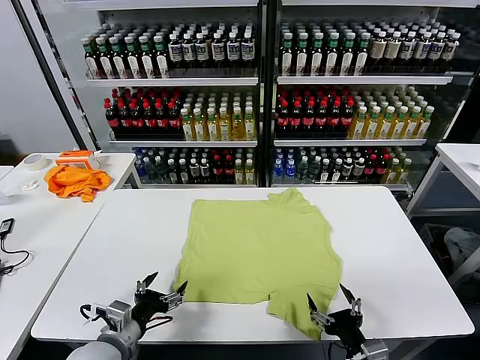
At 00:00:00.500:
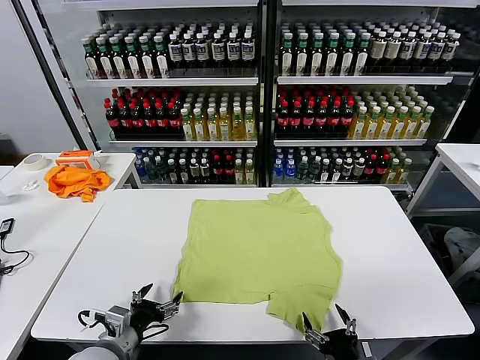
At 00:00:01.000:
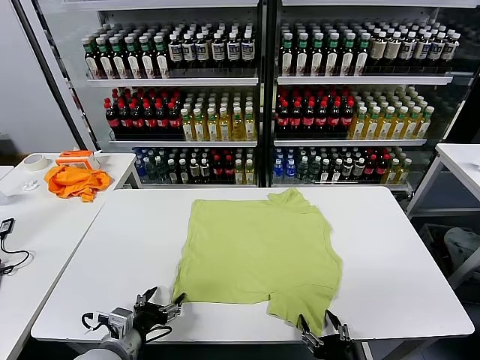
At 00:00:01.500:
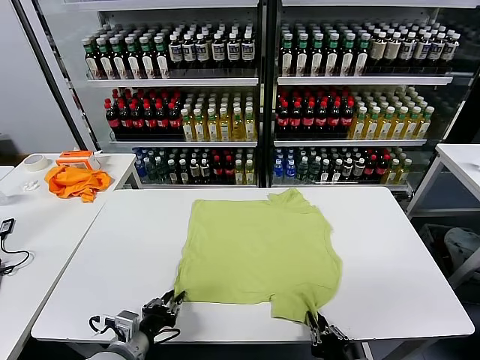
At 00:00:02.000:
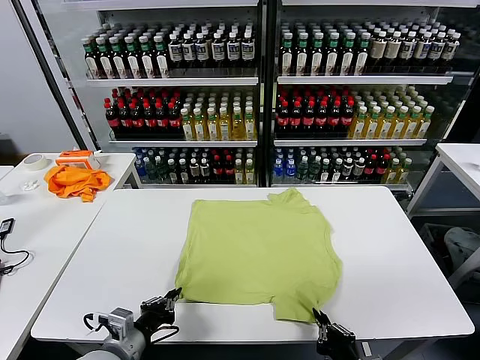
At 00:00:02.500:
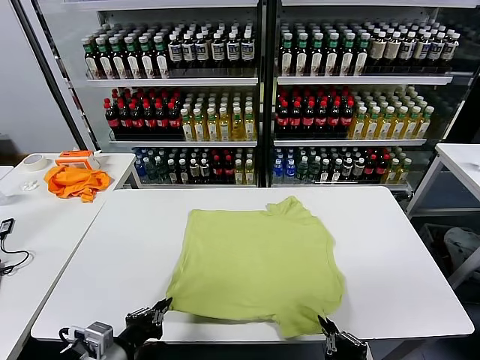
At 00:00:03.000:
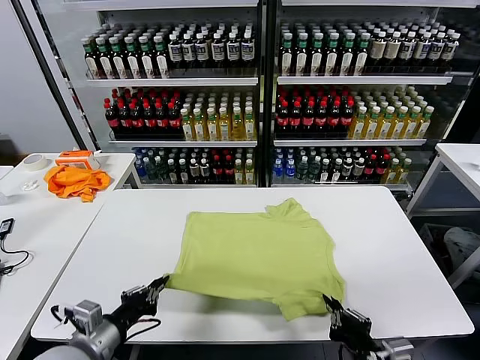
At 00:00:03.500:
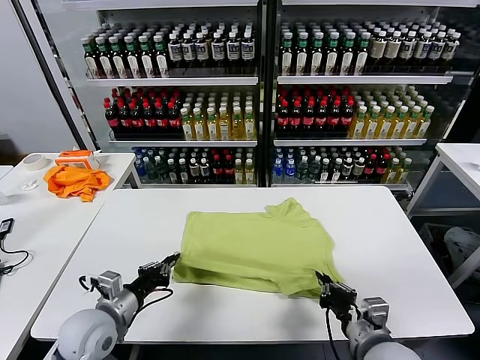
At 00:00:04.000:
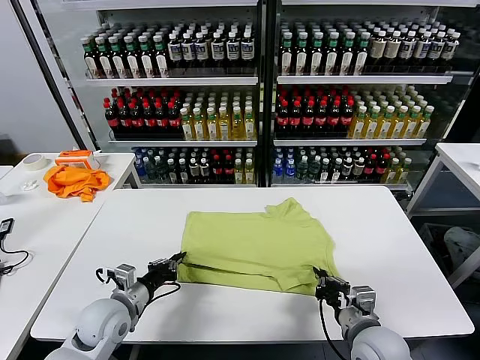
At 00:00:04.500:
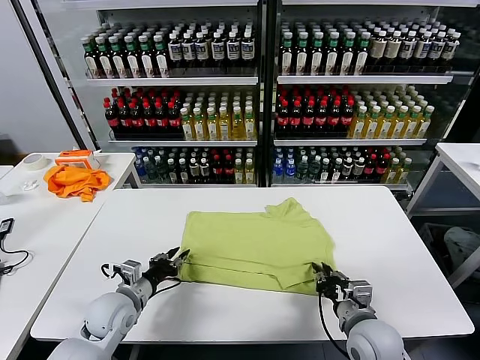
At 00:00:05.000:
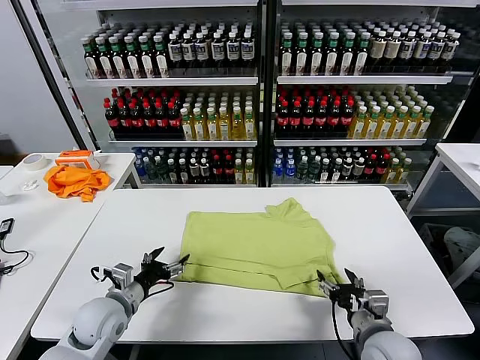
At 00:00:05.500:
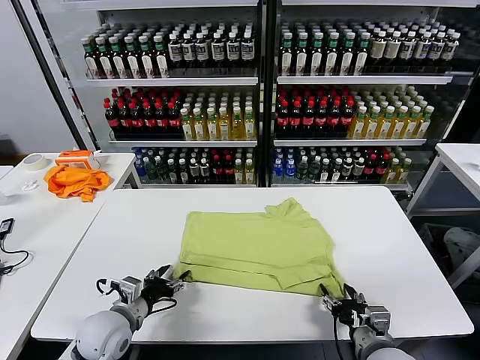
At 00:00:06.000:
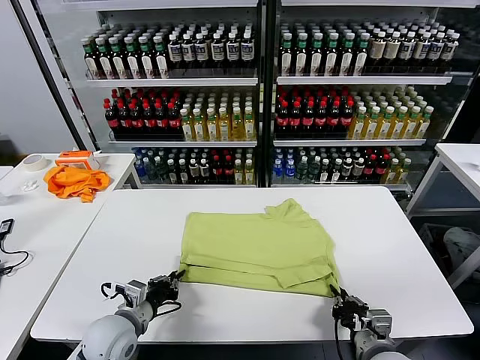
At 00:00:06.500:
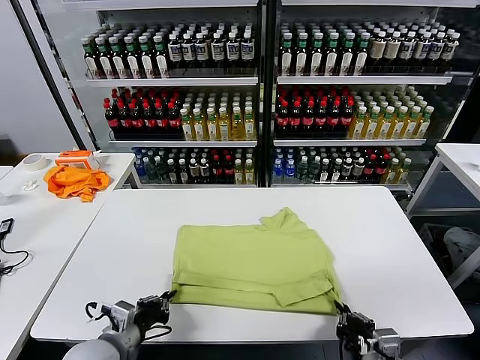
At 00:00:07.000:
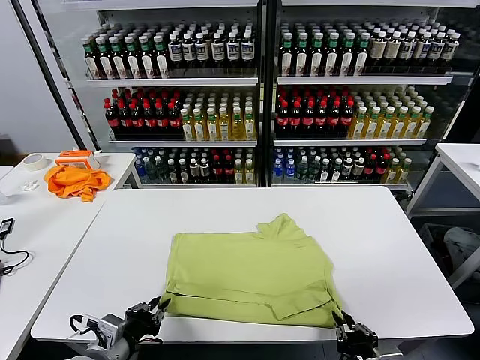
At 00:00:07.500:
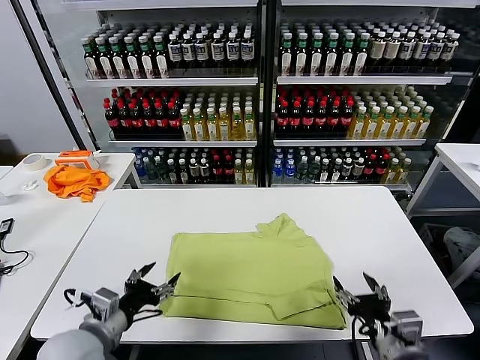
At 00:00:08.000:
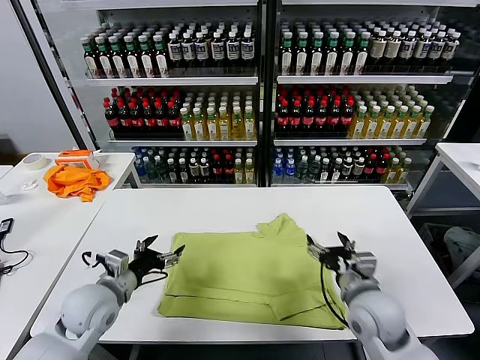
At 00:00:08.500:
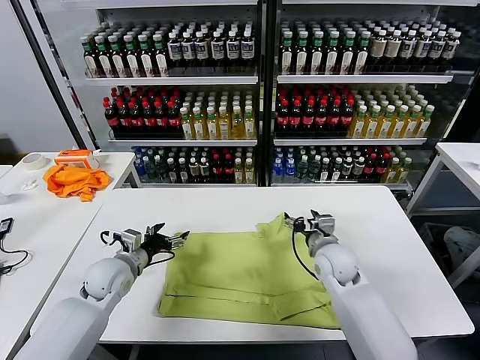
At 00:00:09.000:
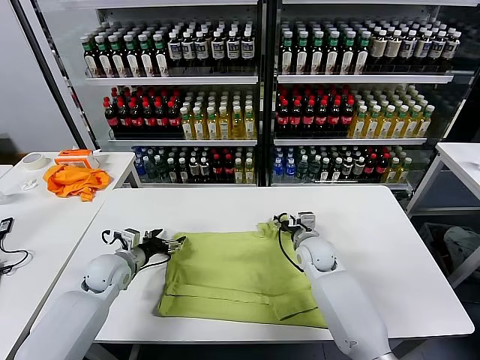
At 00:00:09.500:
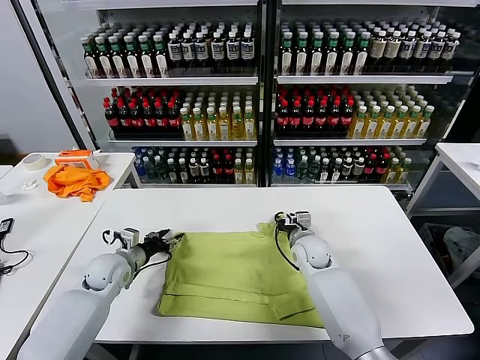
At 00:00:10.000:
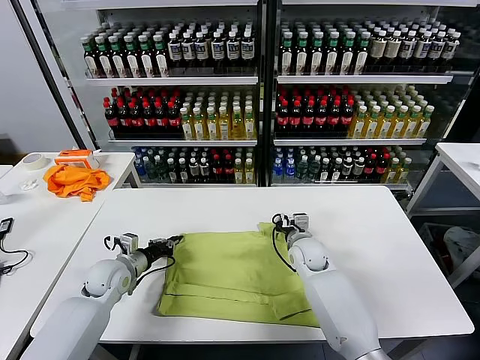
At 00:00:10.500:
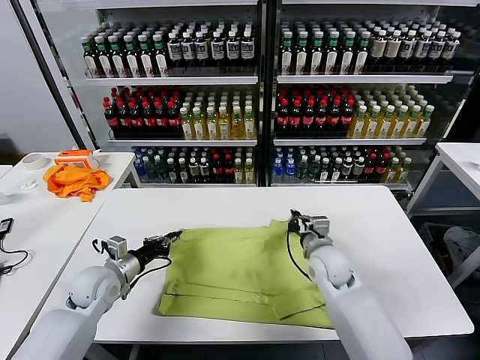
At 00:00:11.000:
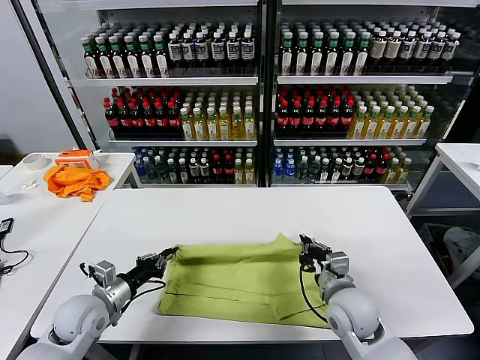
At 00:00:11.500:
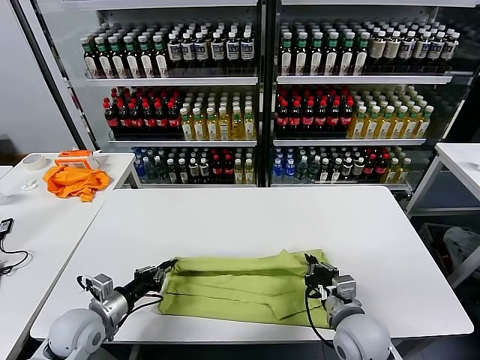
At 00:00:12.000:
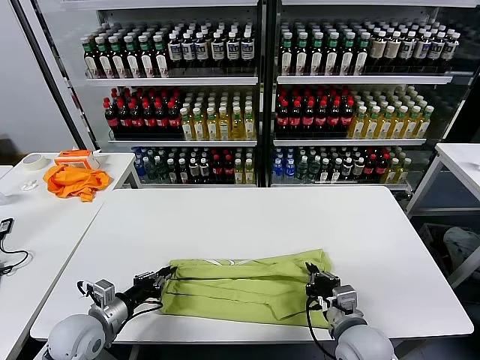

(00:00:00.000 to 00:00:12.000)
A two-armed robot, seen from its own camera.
Task of the whole recording: fold and organize the clothes.
Step, 00:00:00.000 - 00:00:01.500: use both grippers simultaneously to clamp the lower edge of the clothing fabric.
Step, 00:00:02.000 - 00:00:04.500: use both grippers to drag the lower edge of the fabric forward and fold it over the upper edge.
Step, 00:00:05.000 - 00:00:07.000: Drag the clothes downward with both gripper.
Step, 00:00:07.500 - 00:00:09.500: use both grippers simultaneously to clamp the upper edge of the clothing fabric.
00:00:02.000 - 00:00:04.000: Both grippers travel together forward, roughly 15 cm.
00:00:04.000 - 00:00:06.000: The left gripper opens, then closes once more, while the right gripper travels backward by some 5 cm, and opens, then closes once more.
00:00:06.000 - 00:00:08.000: The left gripper heads forward and upward, covering some 10 cm, and opens up. The right gripper goes approximately 15 cm forward and upward, and opens its fingers.
00:00:08.000 - 00:00:10.000: The right gripper is displaced forward, downward and to the left by roughly 20 cm, and closes up. Meanwhile the left gripper is displaced forward and downward by some 10 cm, and closes.
00:00:10.000 - 00:00:12.000: The right gripper is displaced backward by approximately 25 cm. The left gripper travels backward by about 15 cm.

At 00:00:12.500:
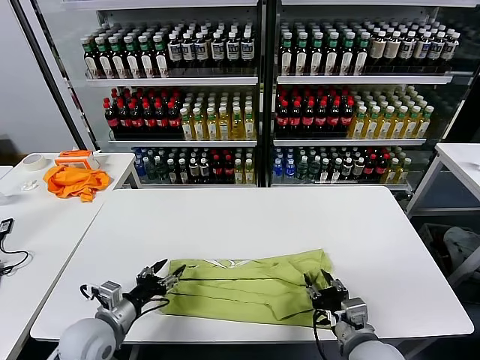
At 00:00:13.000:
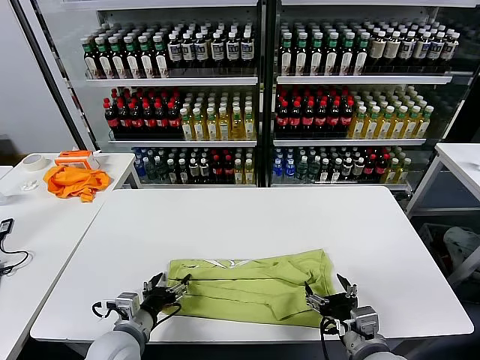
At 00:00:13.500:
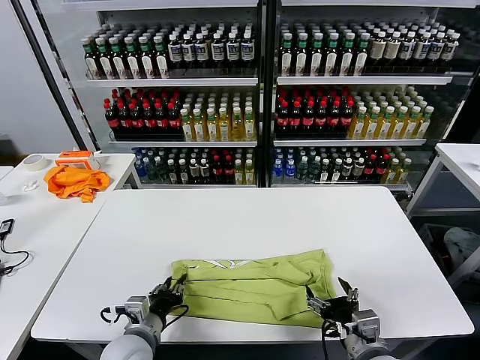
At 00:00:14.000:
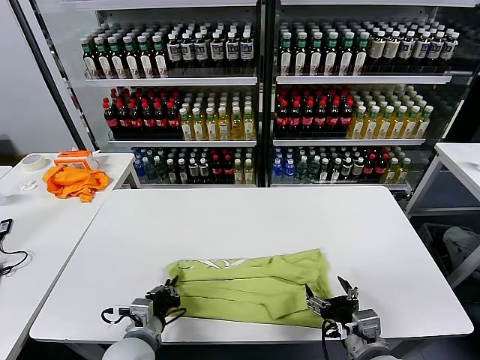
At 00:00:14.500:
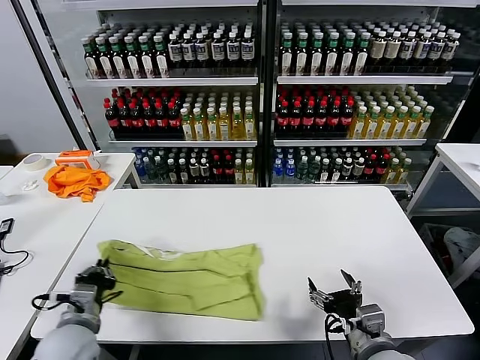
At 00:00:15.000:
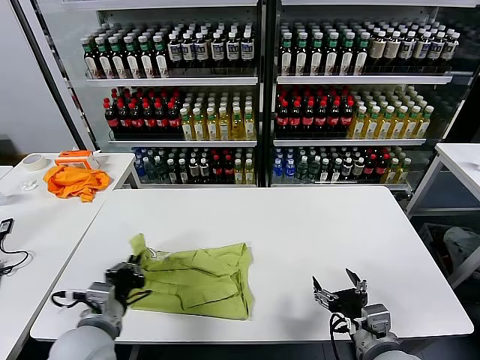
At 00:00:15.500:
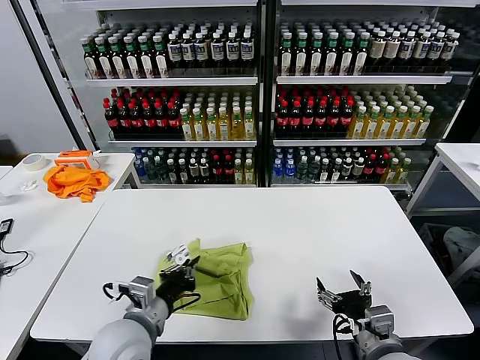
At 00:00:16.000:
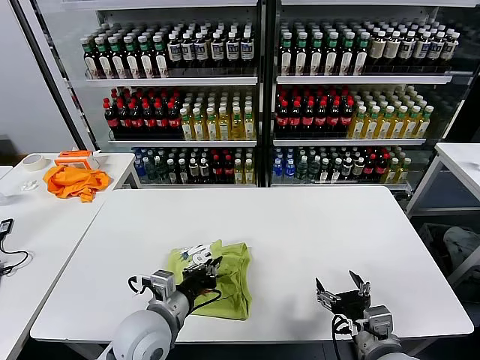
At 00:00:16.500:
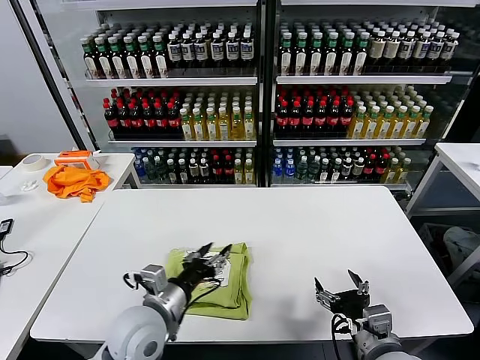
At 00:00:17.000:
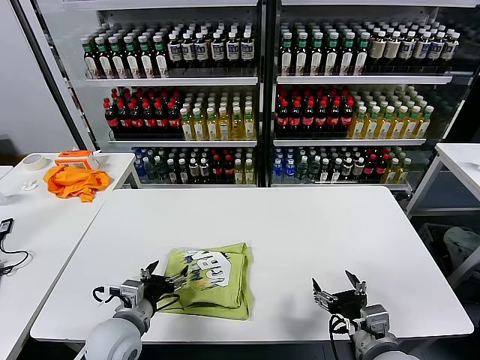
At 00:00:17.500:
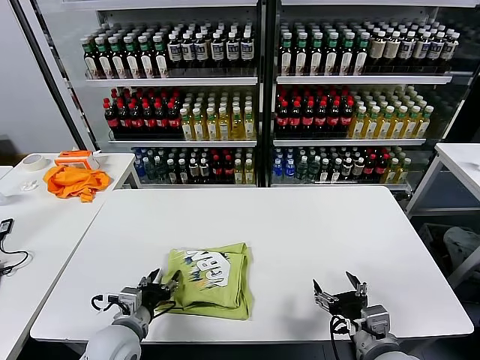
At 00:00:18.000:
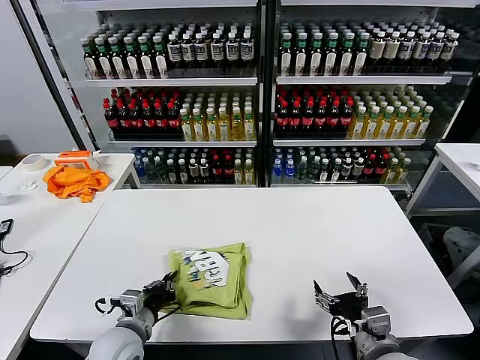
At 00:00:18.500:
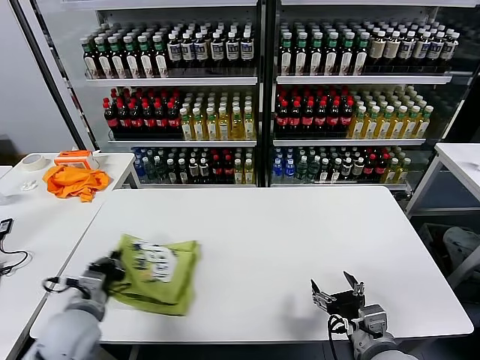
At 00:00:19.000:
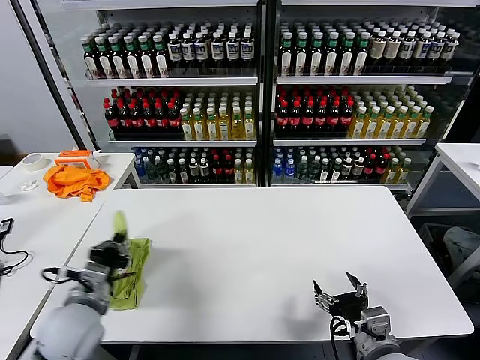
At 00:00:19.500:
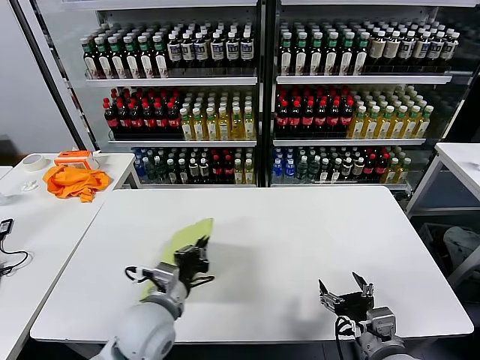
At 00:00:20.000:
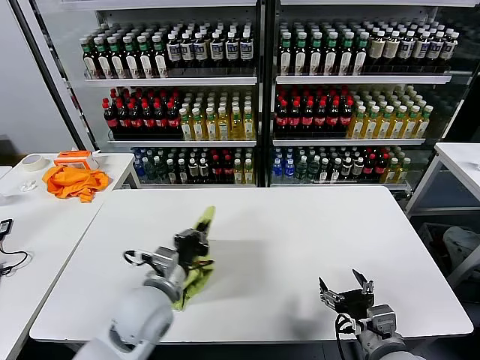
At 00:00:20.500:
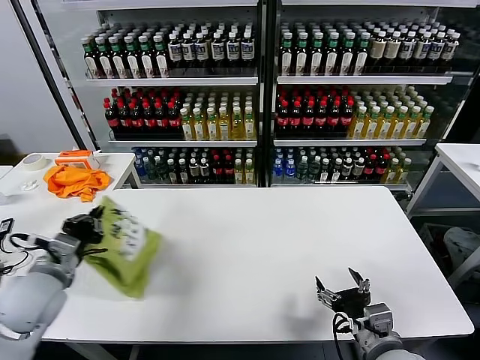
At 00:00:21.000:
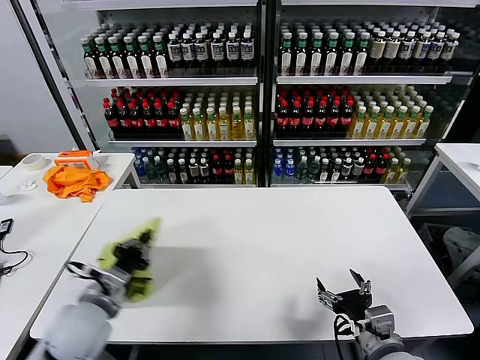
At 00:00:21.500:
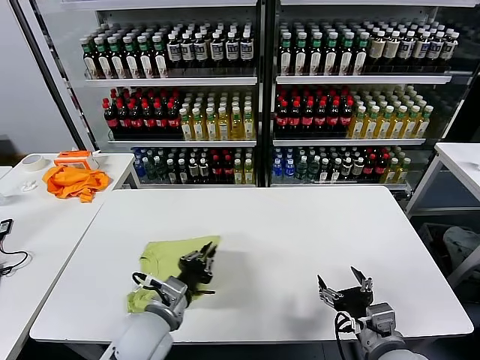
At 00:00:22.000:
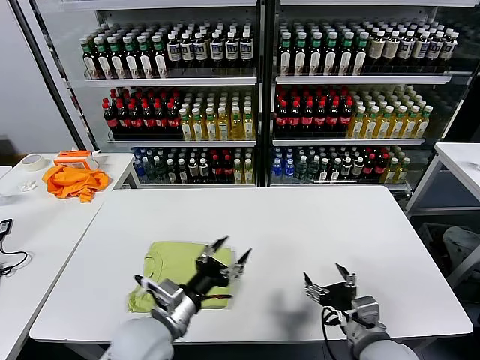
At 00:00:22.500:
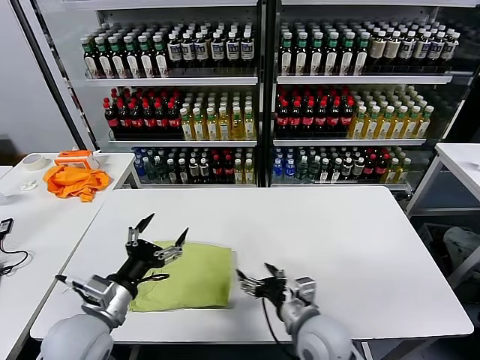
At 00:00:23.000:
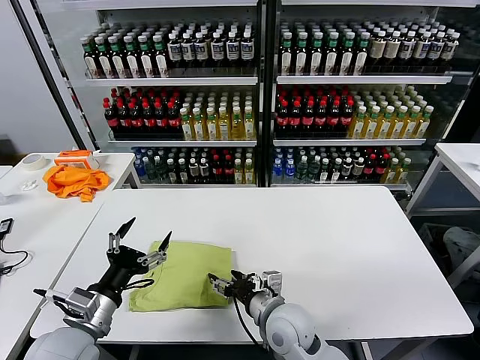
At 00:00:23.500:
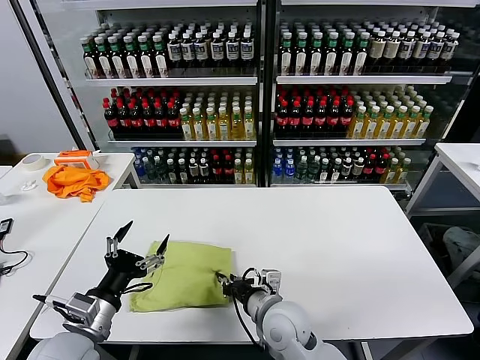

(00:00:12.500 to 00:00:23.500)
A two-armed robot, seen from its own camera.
Task of the whole recording: fold and organize the clothes.
Step, 00:00:12.500 - 00:00:13.500: use the left gripper to clamp the left edge of the fabric.
Step, 00:00:14.000 - 00:00:16.000: use the left gripper to drag the left edge of the fabric to the left and folds it over the right edge.
Step, 00:00:16.500 - 00:00:21.500: Flip the folded clothes over with left gripper.
00:00:12.500 - 00:00:14.500: The left gripper travels to the right and back again, approximately 10 cm each way, and closes its fingers.
00:00:14.500 - 00:00:16.000: The left gripper heads to the right, covering some 15 cm.
00:00:16.000 - 00:00:18.000: The left gripper heads downward and to the left, covering some 10 cm, and opens and closes again.
00:00:18.000 - 00:00:20.000: The left gripper moves upward and to the right, approximately 15 cm.
00:00:20.000 - 00:00:21.500: The left gripper reaches some 20 cm to the left, then returns.
00:00:21.500 - 00:00:23.500: The left gripper goes approximately 10 cm to the left, and opens up. Meanwhile the right gripper travels to the left and forward by some 20 cm, and closes its fingers.

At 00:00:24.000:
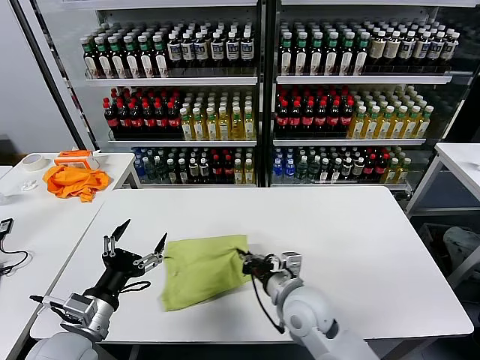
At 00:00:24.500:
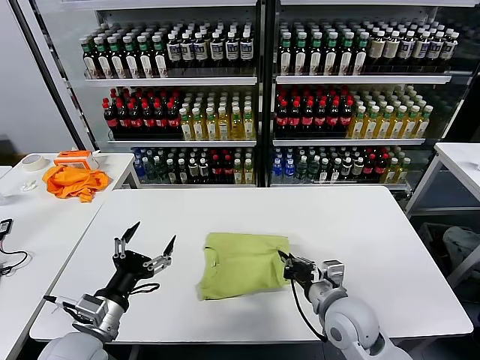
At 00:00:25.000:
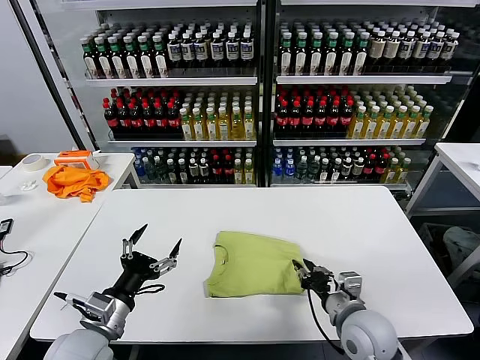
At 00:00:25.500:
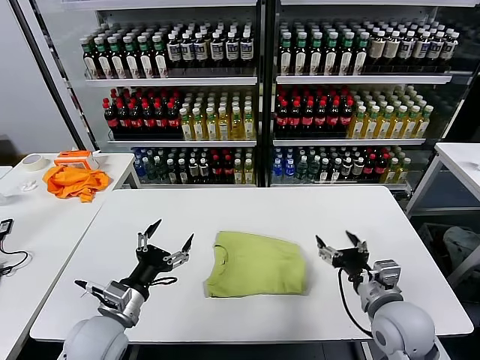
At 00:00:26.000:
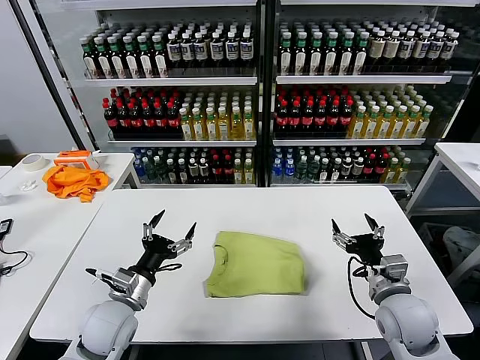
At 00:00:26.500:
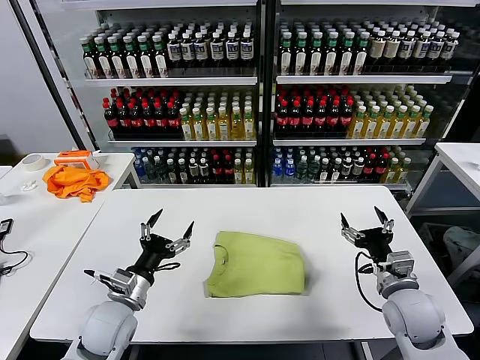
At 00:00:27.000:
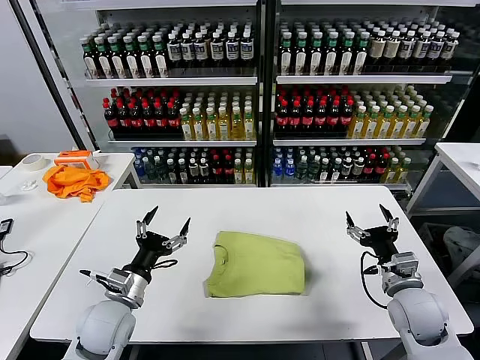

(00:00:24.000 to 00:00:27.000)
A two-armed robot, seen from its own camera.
Task of the whole recording: fold and organize the clothes.
00:00:24.000 - 00:00:25.500: The right gripper travels to the right by approximately 15 cm, and opens. Meanwhile the left gripper shifts by roughly 5 cm.
00:00:25.500 - 00:00:27.000: The right gripper is displaced to the right by approximately 5 cm.
